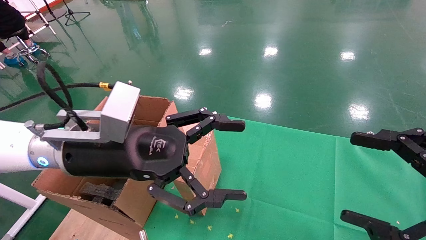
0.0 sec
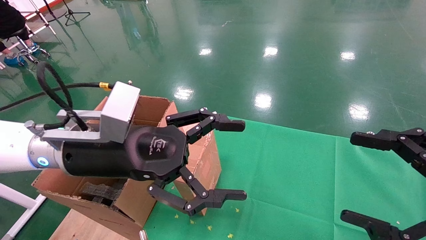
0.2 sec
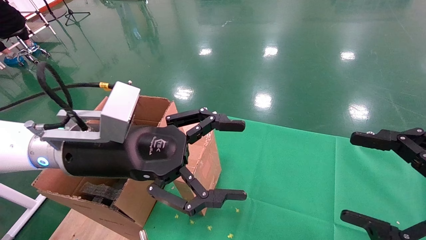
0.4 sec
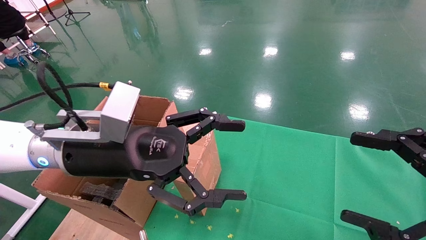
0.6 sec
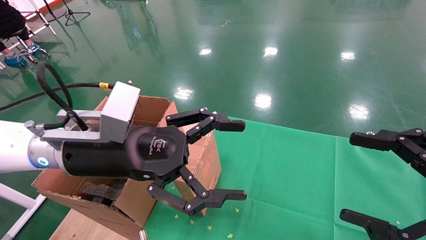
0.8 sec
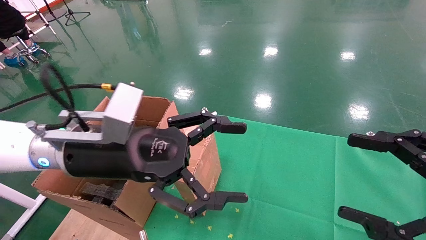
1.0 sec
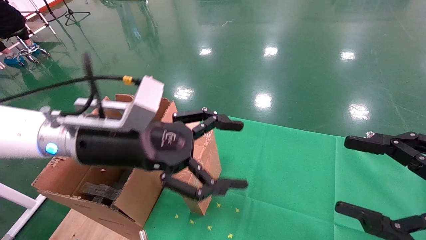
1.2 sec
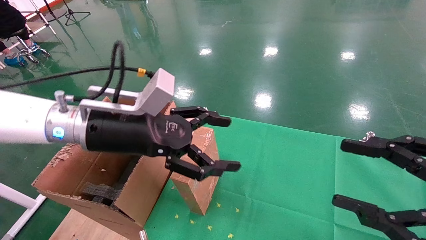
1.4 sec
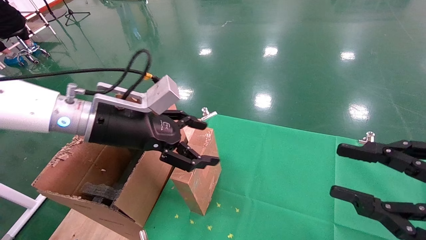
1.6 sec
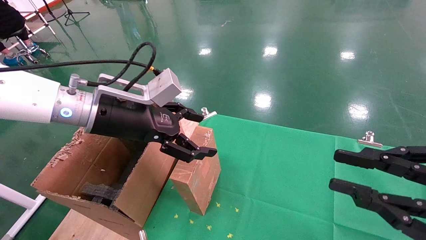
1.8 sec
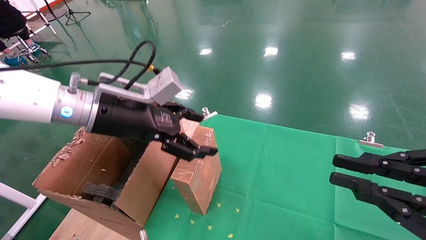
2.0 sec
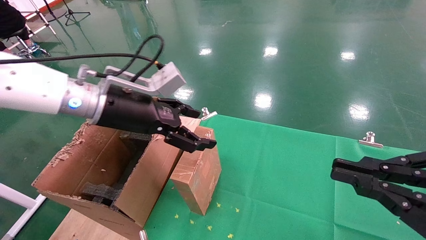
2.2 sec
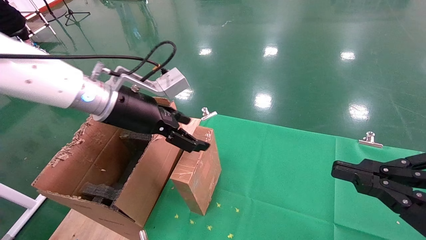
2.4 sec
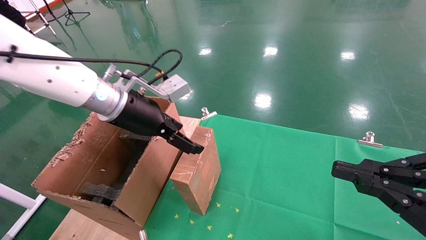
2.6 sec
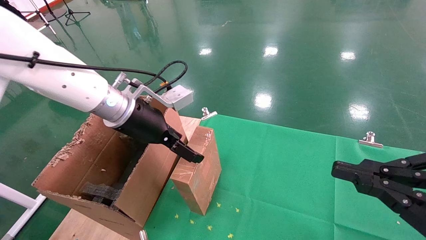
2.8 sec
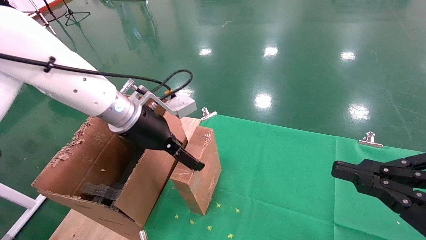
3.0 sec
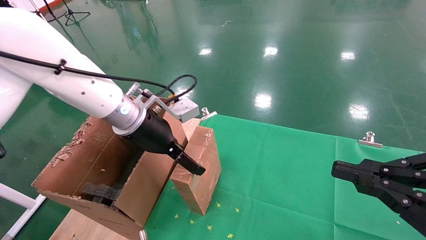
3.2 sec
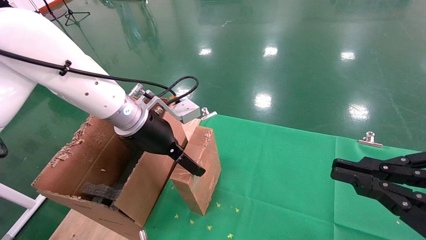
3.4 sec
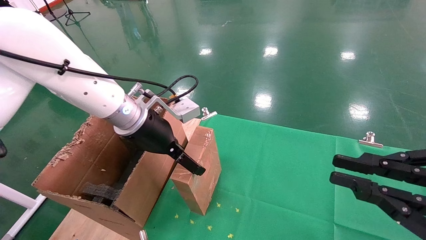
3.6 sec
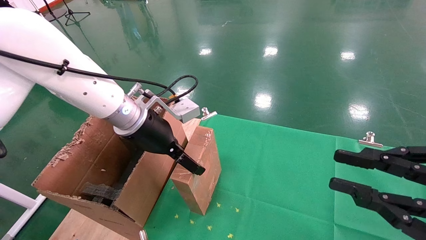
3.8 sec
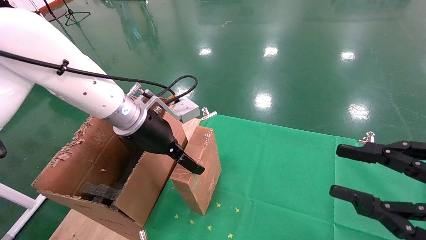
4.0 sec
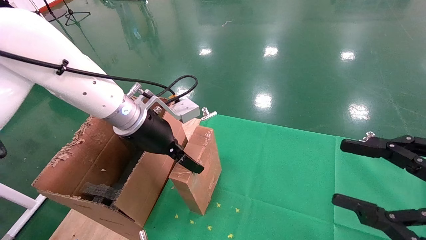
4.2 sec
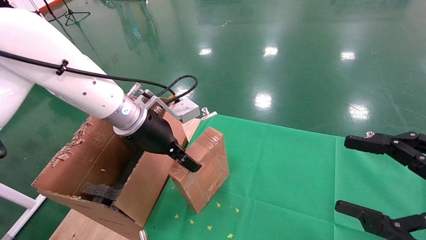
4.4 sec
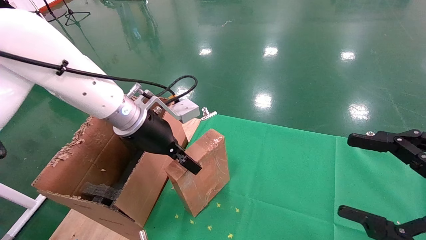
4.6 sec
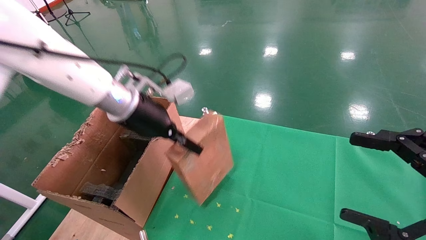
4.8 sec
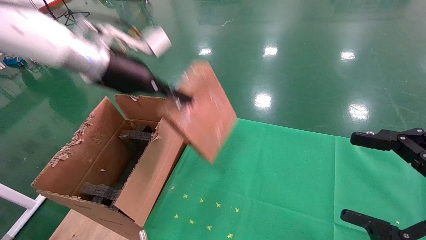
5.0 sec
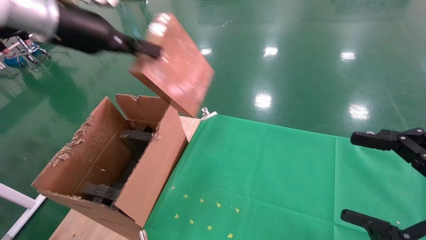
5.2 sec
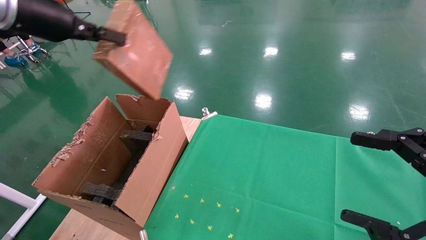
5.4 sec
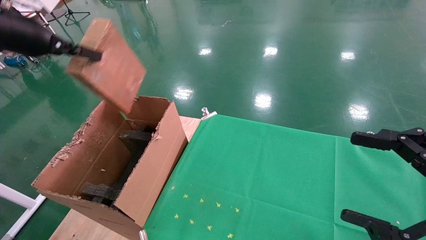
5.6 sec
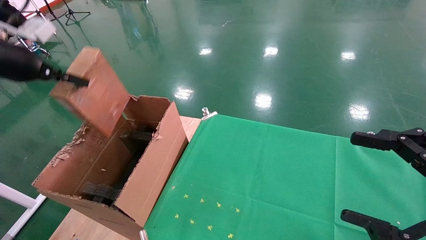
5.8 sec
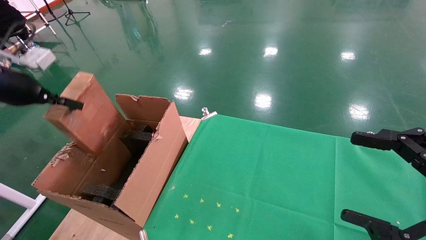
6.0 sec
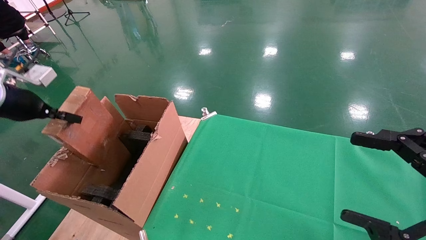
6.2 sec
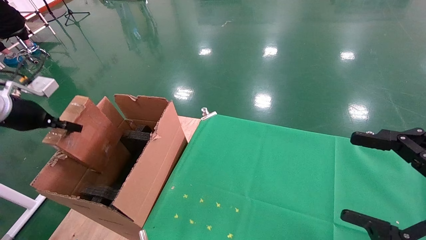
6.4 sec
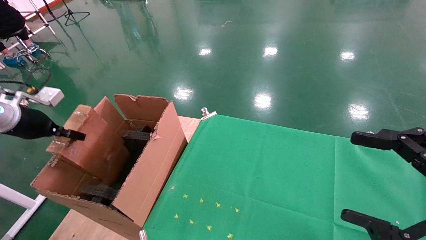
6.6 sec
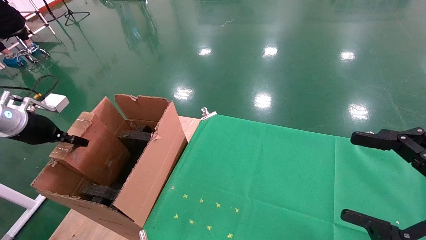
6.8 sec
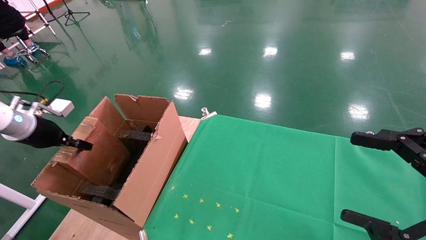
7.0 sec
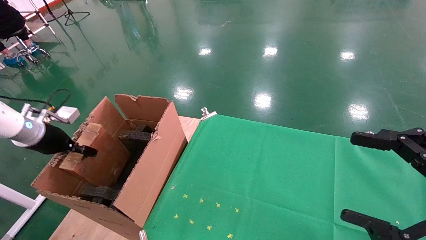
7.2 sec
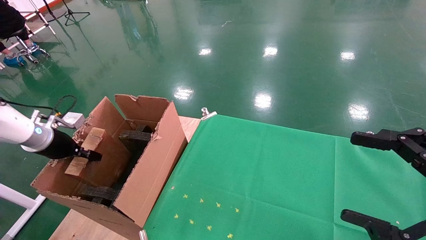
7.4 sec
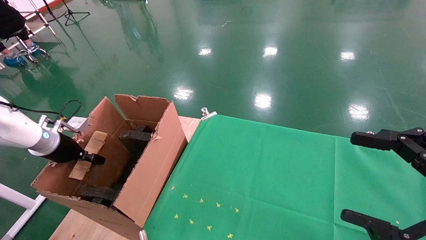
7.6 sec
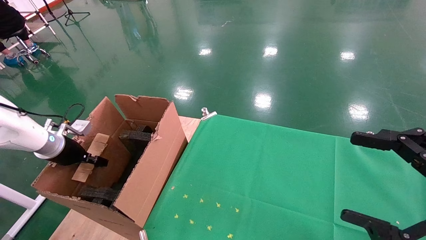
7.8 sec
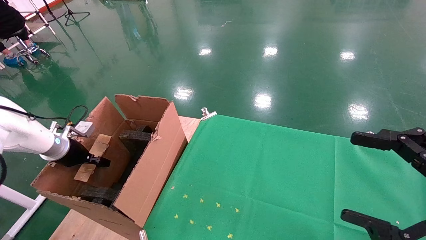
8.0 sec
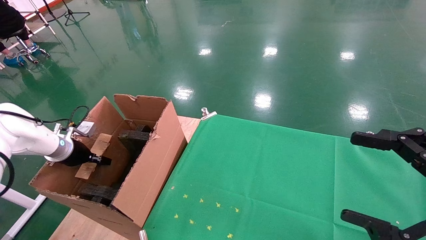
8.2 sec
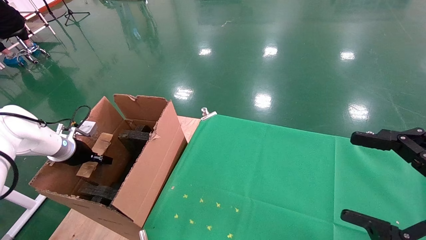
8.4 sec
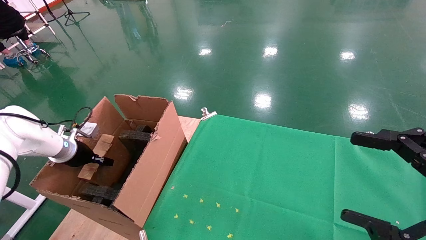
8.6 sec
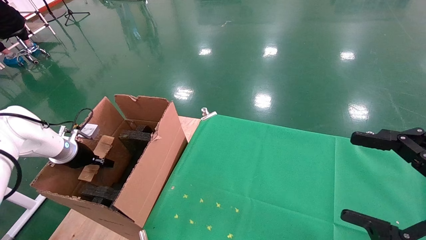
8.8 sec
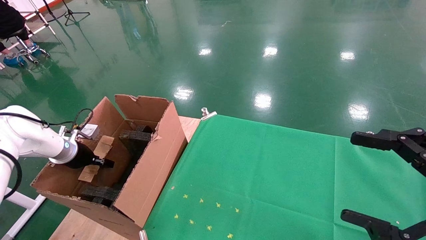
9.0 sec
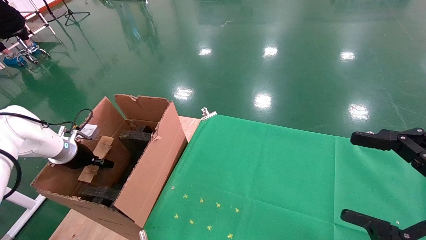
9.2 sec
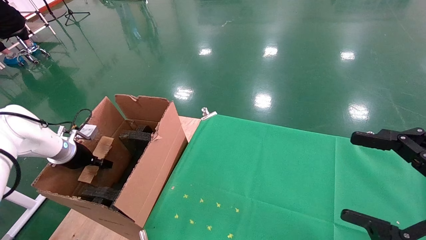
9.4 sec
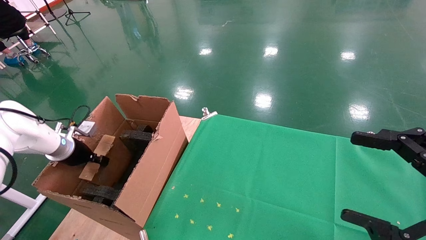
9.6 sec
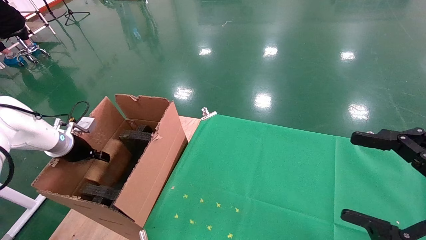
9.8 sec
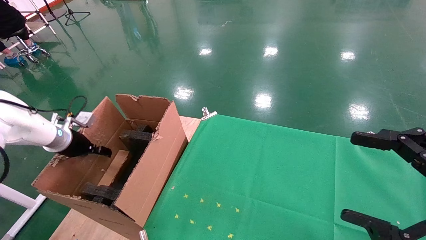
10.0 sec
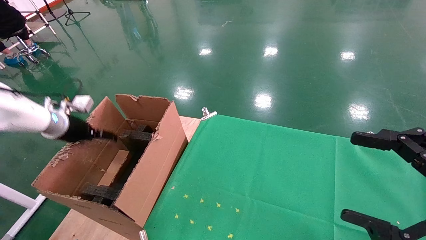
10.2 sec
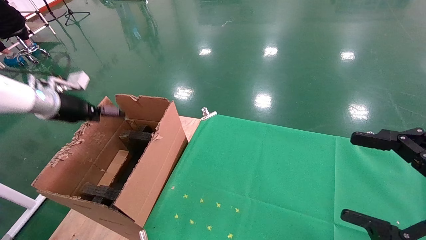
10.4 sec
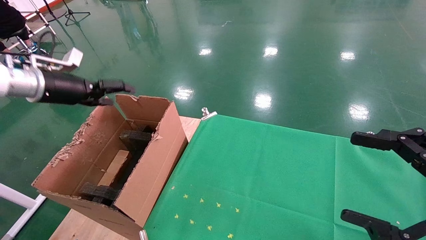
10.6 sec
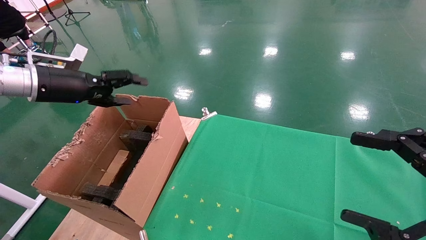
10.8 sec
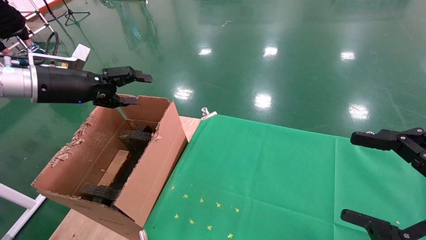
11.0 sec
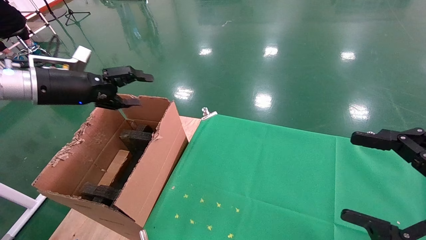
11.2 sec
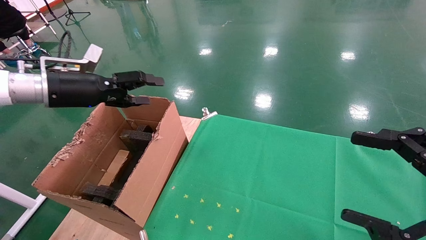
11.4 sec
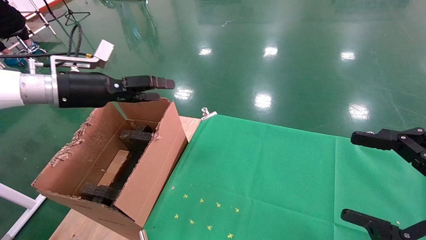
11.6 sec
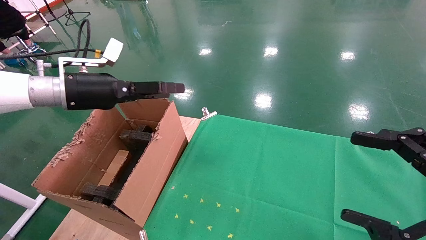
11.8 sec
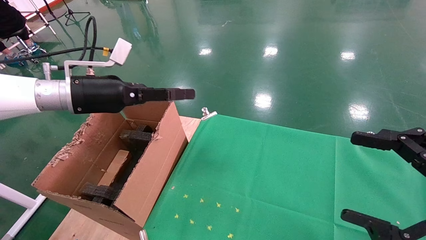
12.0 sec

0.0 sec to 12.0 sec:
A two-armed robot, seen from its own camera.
Task of the whole recording: using a robotic arm to pick up a cardboard box and palace it the carton.
Step, 1.4 sec to 4.4 sec: Pick up the mouse and the power cord paper box.
Step, 4.6 sec to 10.4 sec: Place the mouse and the power cord paper box into the container.
0.0 sec to 1.6 sec: The right gripper closes. The left gripper goes some 5 cm forward.
1.6 sec to 3.0 sec: The right gripper closes its fingers. Meanwhile the left gripper goes approximately 5 cm forward.
3.0 sec to 4.4 sec: The left gripper closes up. The right gripper opens up.
4.4 sec to 6.0 sec: The left gripper moves to the left, about 30 cm, and closes its fingers.
6.0 sec to 7.6 sec: The left gripper shifts about 20 cm downward.
7.6 sec to 9.0 sec: The grippers make only small movements.
9.0 sec to 10.4 sec: The left gripper travels upward by about 15 cm, and opens its fingers.
10.4 sec to 12.0 sec: The left gripper travels to the right by some 15 cm.

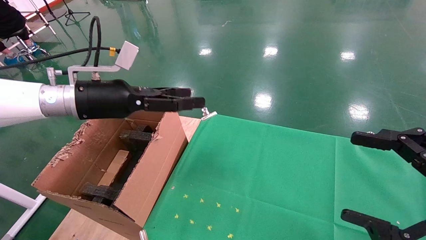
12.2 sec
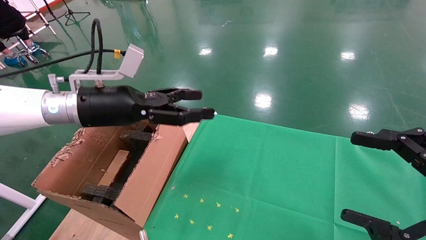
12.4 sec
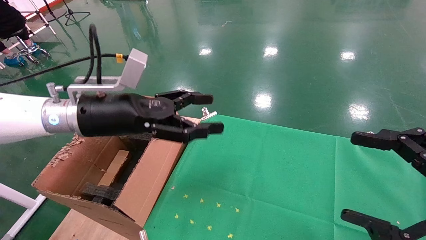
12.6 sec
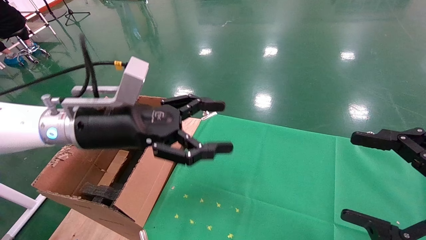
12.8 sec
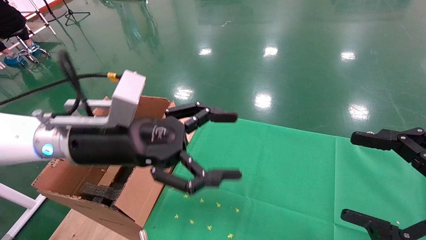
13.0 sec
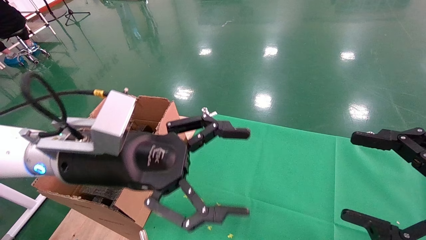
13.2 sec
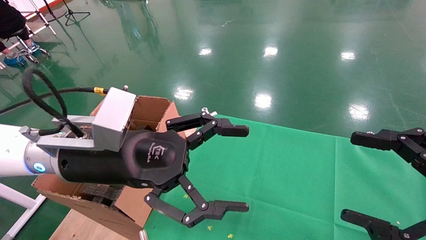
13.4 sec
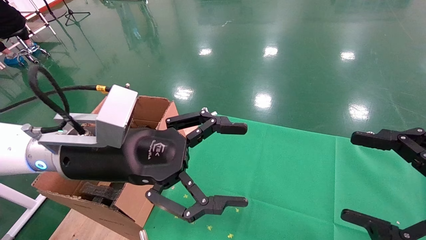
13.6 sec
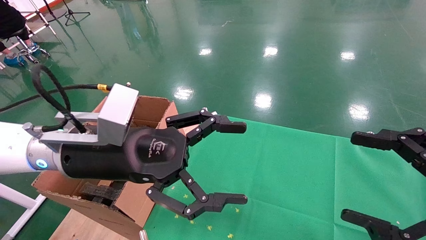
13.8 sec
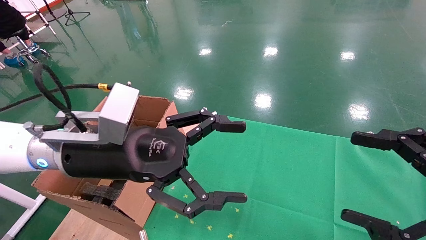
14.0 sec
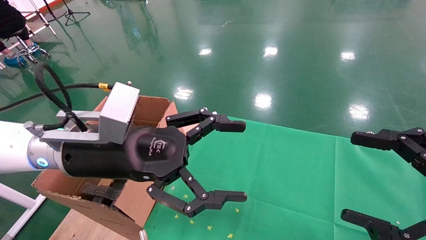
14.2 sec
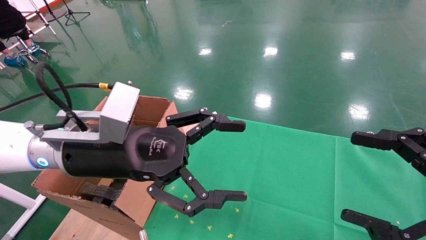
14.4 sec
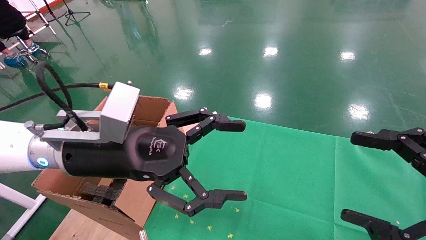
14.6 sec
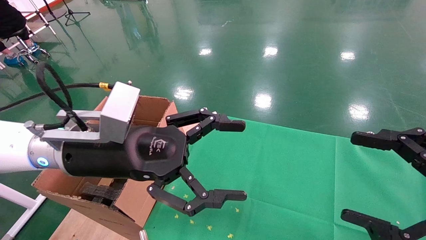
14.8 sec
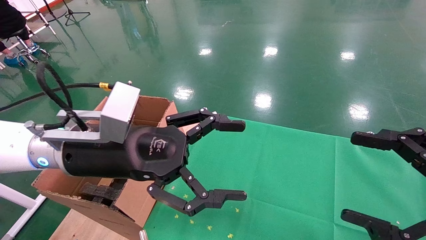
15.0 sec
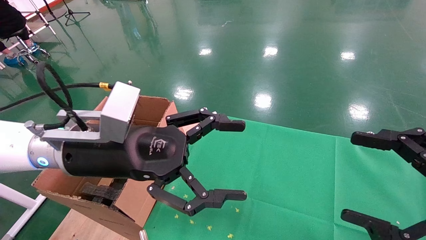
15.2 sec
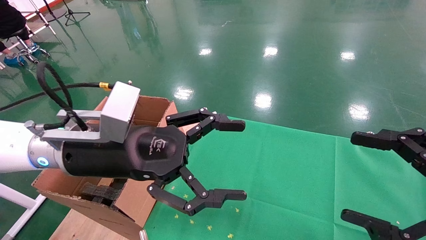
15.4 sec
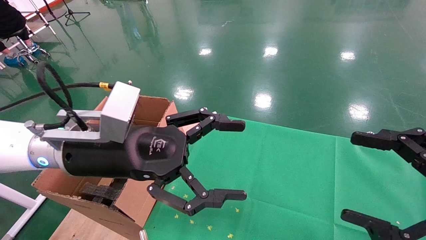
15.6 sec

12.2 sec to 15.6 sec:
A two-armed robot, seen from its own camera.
Task of the whole recording: using a robotic arm to pick up a cardboard box and palace it the carton.
12.2 sec to 13.8 sec: The left gripper goes some 15 cm backward and to the right.
13.8 sec to 15.6 sec: Both grippers stay put.

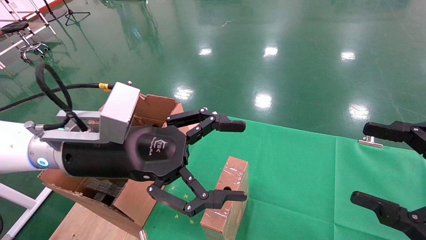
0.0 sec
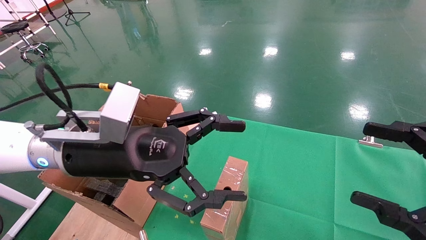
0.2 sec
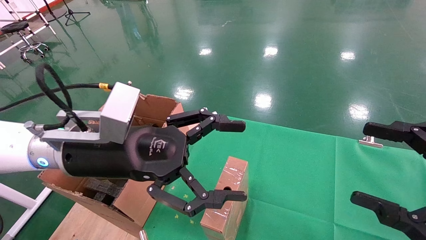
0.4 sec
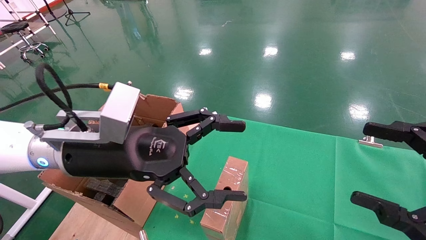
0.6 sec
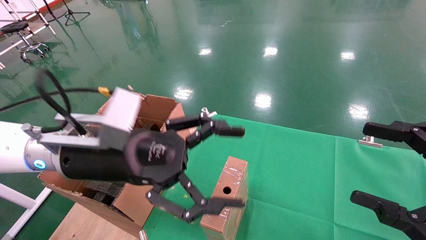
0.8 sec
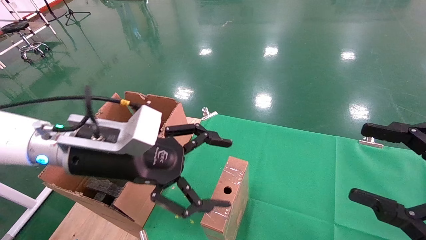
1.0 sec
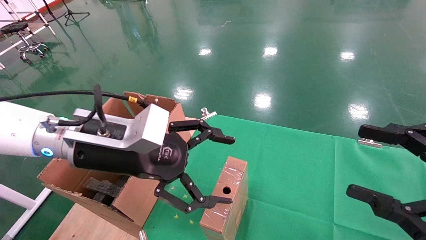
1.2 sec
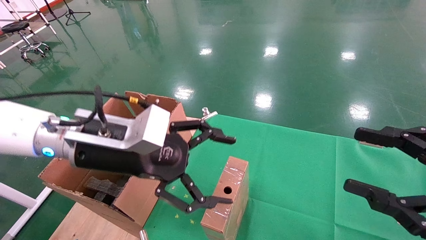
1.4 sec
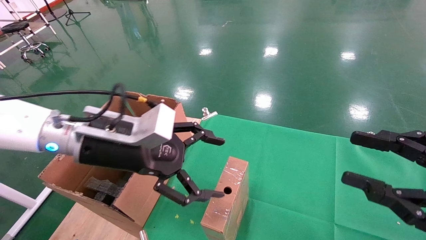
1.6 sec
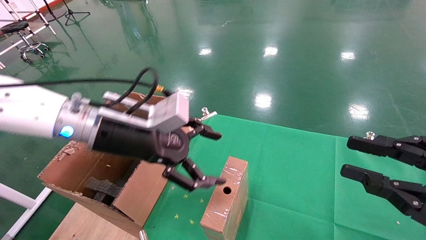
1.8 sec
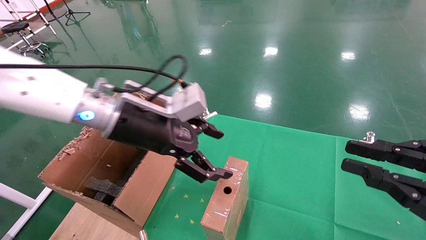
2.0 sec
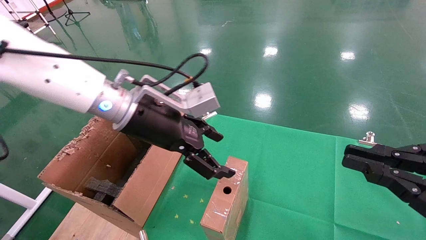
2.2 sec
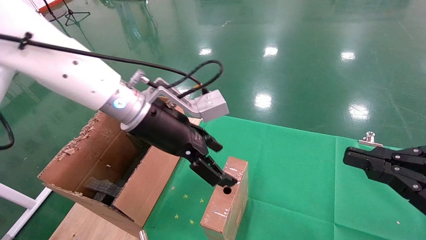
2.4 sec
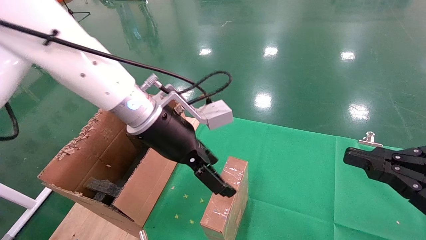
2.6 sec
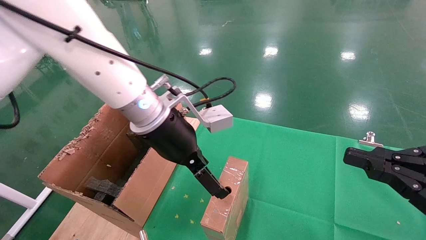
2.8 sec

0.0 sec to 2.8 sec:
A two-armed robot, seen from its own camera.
Task of the whole recording: using a robotic arm to pick up a cardboard box and palace it the carton.
1.4 sec to 2.8 sec: The right gripper closes up, while the left gripper shifts approximately 10 cm to the right and forward.
